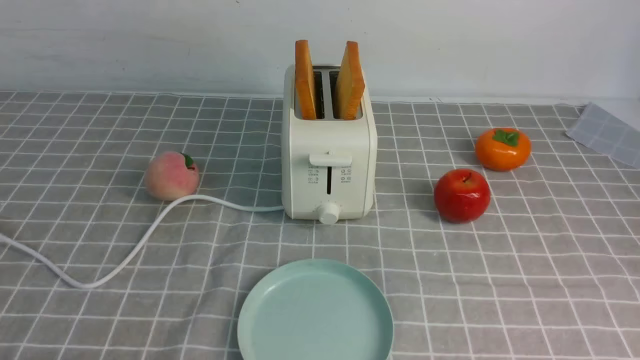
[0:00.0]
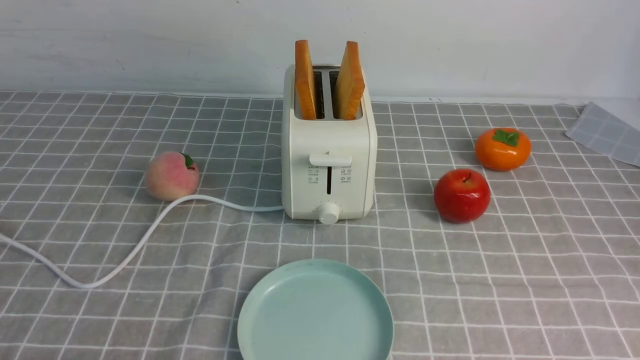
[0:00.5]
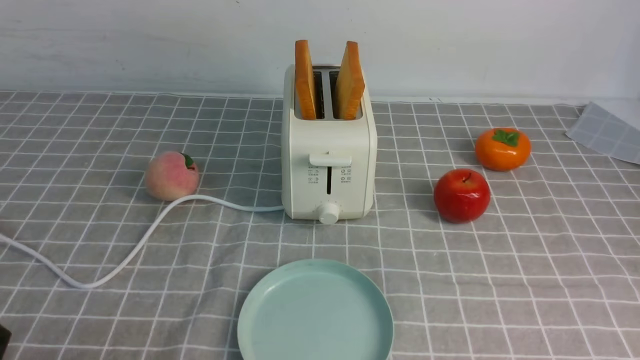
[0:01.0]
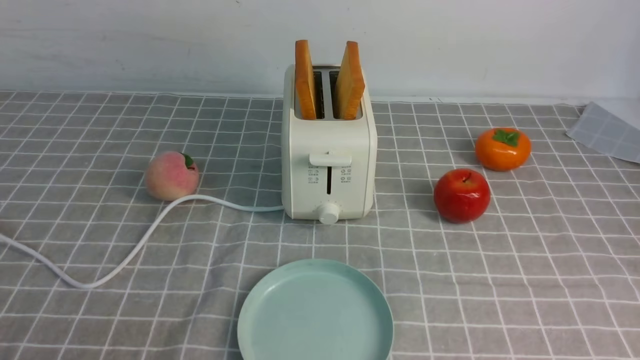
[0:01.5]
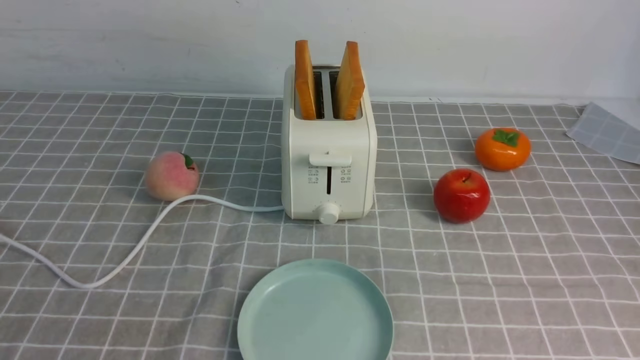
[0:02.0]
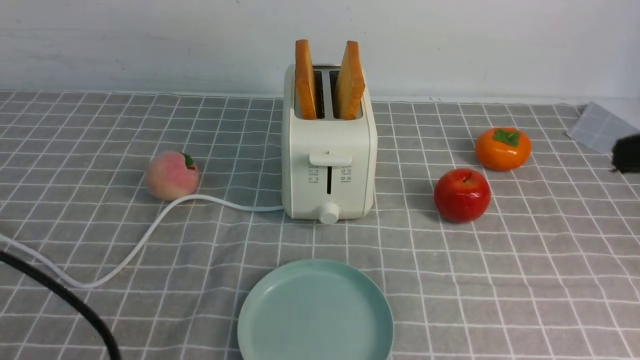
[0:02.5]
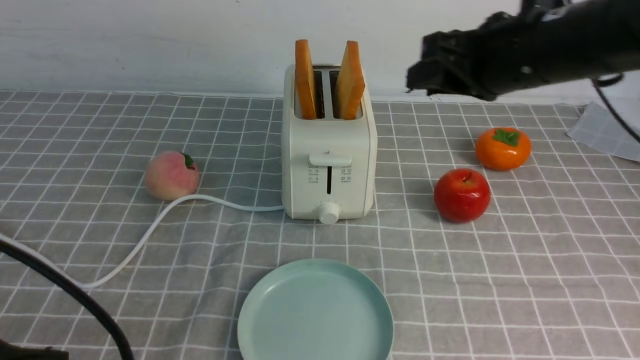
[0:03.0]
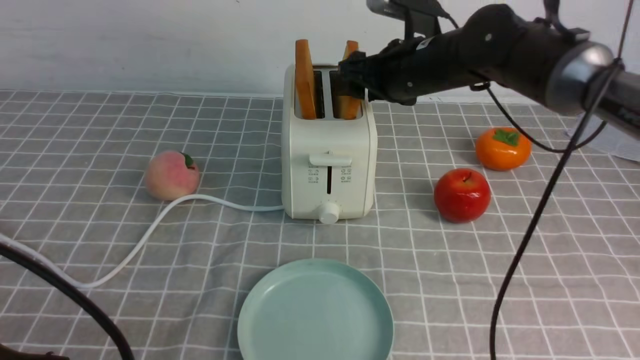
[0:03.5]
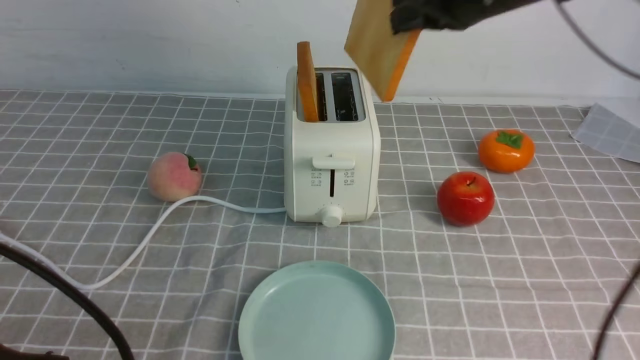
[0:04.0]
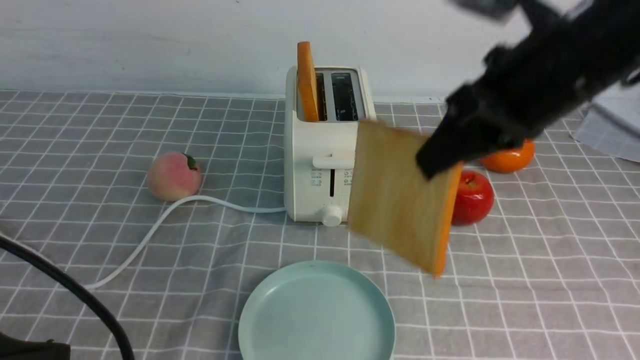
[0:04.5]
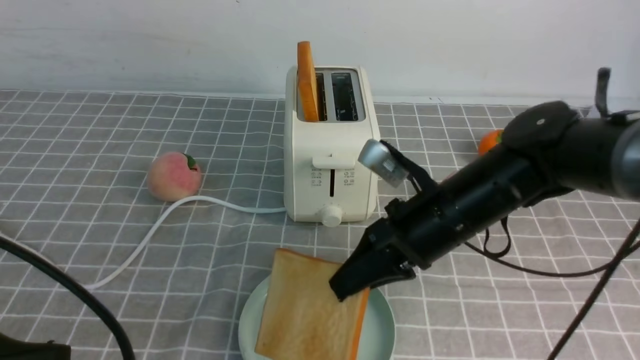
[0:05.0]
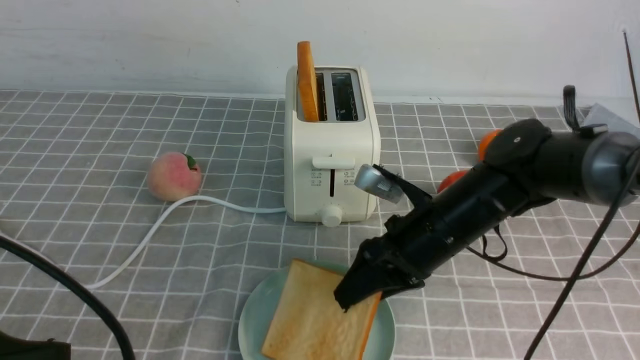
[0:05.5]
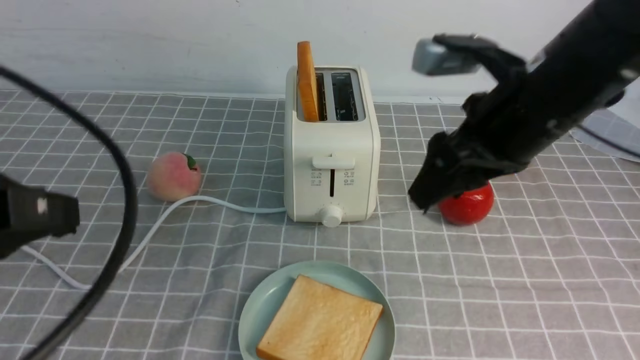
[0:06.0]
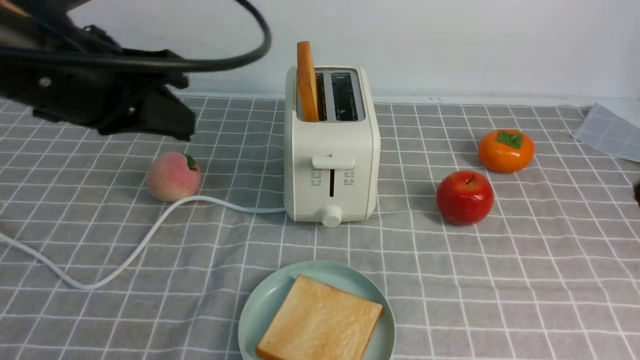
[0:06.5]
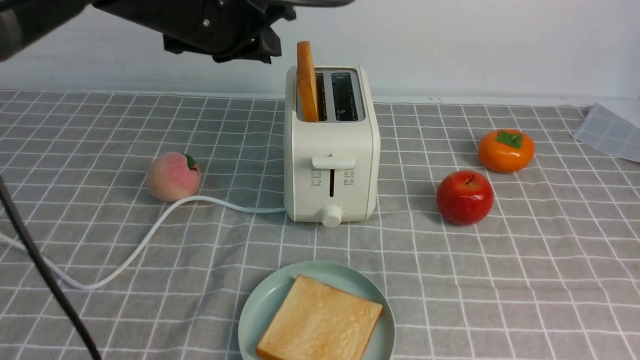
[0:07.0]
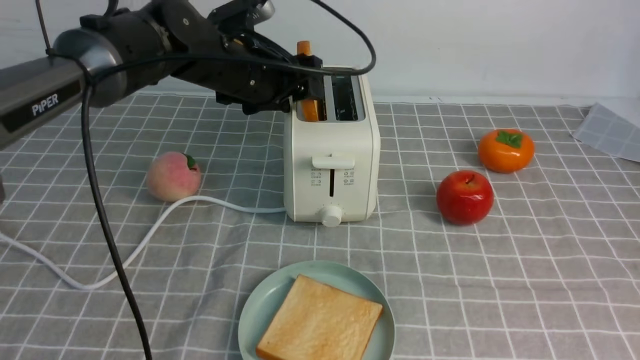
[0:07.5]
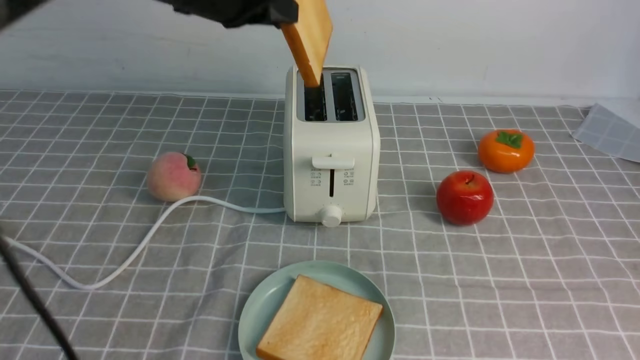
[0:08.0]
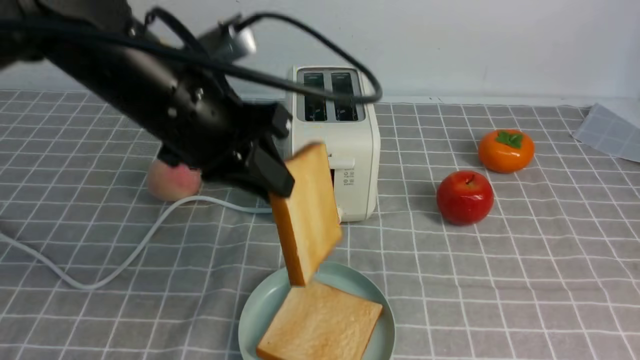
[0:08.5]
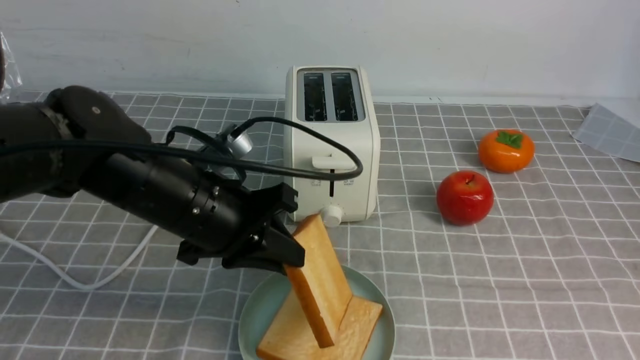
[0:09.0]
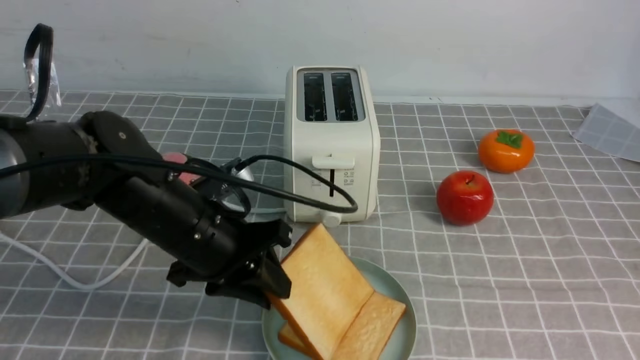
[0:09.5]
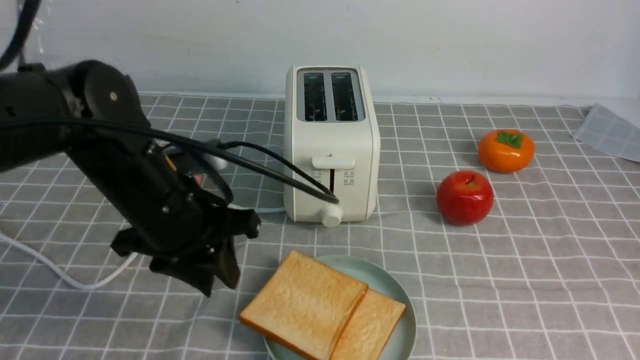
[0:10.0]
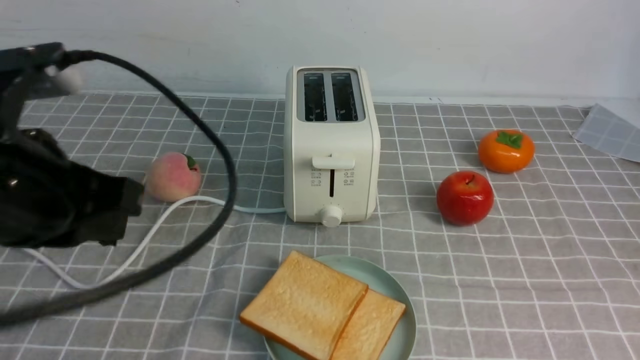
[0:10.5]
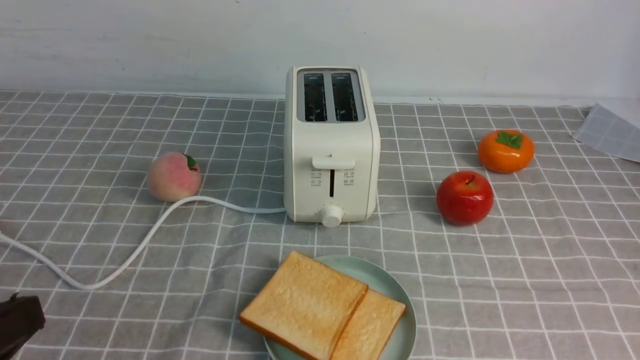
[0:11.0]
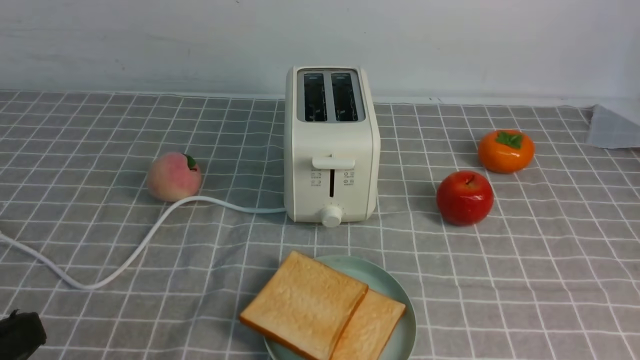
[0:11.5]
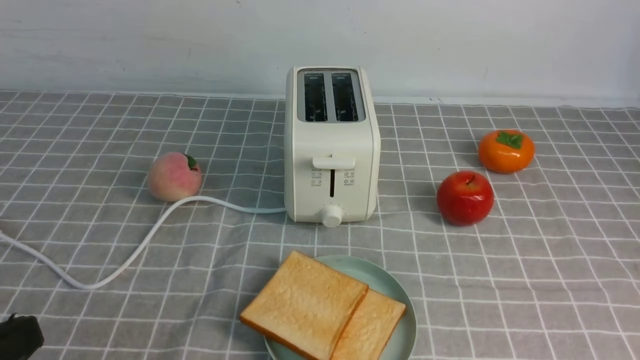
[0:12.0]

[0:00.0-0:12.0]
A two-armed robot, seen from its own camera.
Task of the whole recording: take toasted bread from bread machine on grey coffee table place on plate.
Step, 0:00.0 to 0:04.0: use the right arm to take out a slice of bread.
Step, 0:04.5 to 0:05.5: use the right arm to put a slice of bread into the plate.
Step, 0:06.0 to 0:08.0: use the left arm to take out a slice of bread.
Step, 0:08.5 to 0:10.0: use the left arm to put a slice of bread into the empty plate.
0:02.0 to 0:04.0: The left gripper ends up roughly 5 cm from where it was; the right gripper shifts roughly 35 cm forward, and opens, then closes again.
0:04.0 to 0:06.0: The left gripper is displaced upward and forward by some 10 cm; the right gripper goes about 10 cm backward, travels downward and back again, some 20 cm each way, and opens its fingers.
0:06.0 to 0:08.0: The right gripper travels backward and to the right by roughly 25 cm, and closes up; the left gripper goes roughly 25 cm forward and to the right, and opens, then closes once more.
0:08.0 to 0:10.0: The left gripper is displaced downward and backward by some 15 cm.
0:10.0 to 0:12.0: The left gripper heads backward and to the left, covering roughly 25 cm, and closes up. The right gripper travels downward and backward by some 10 cm.

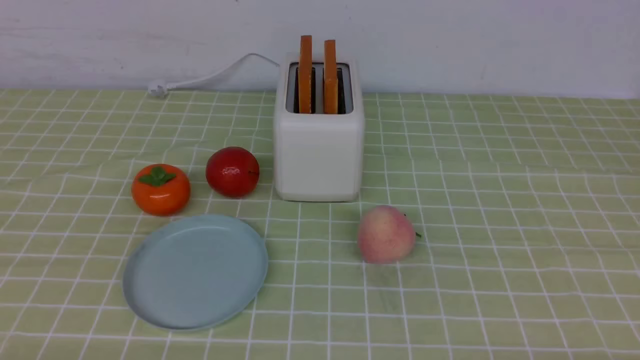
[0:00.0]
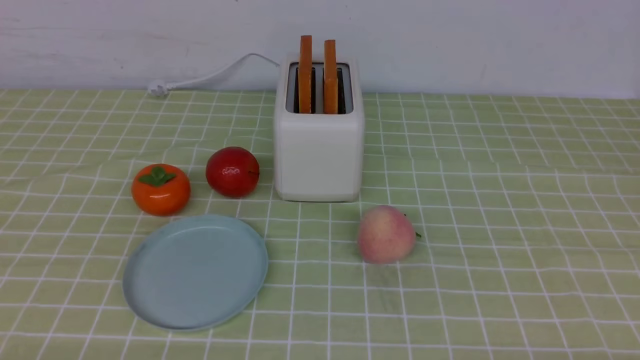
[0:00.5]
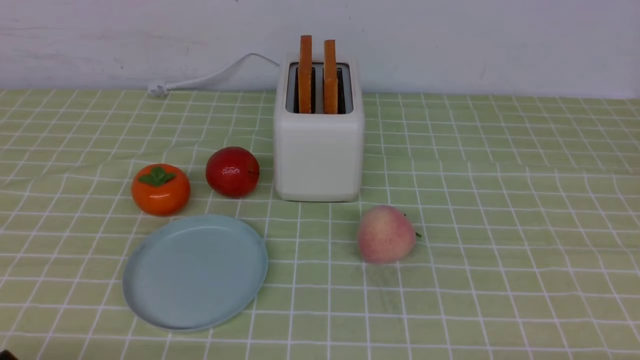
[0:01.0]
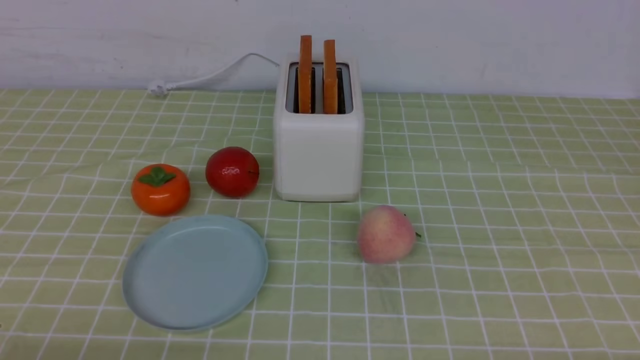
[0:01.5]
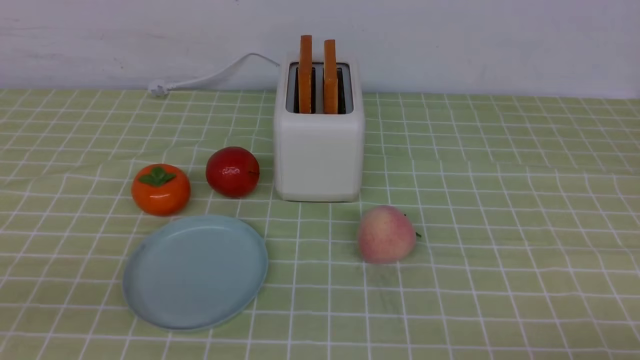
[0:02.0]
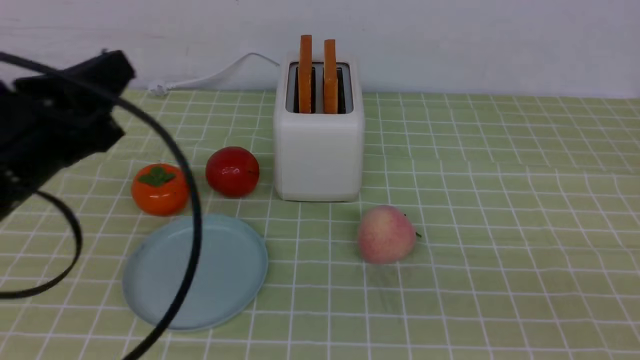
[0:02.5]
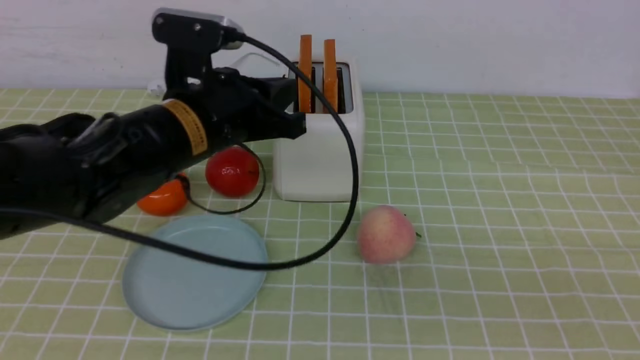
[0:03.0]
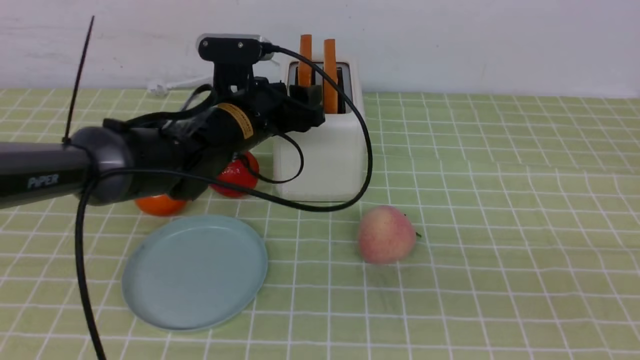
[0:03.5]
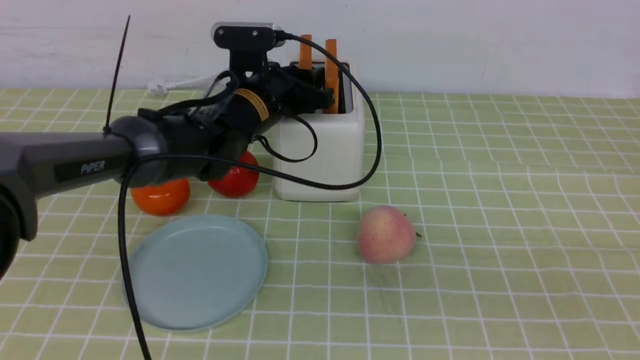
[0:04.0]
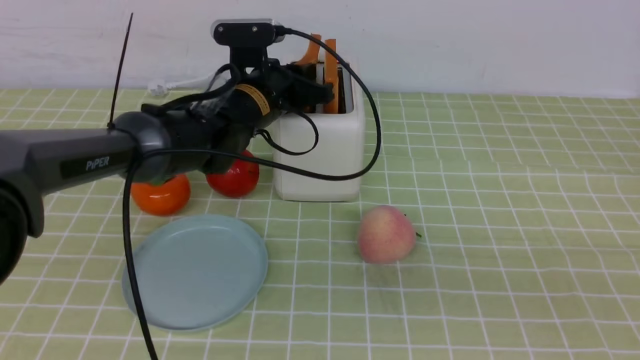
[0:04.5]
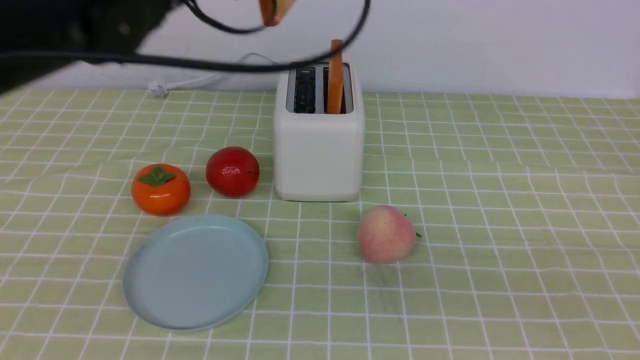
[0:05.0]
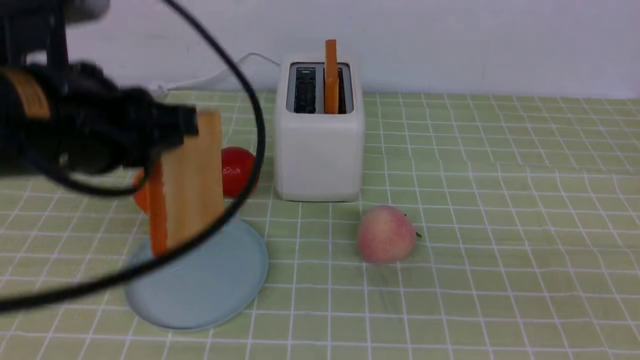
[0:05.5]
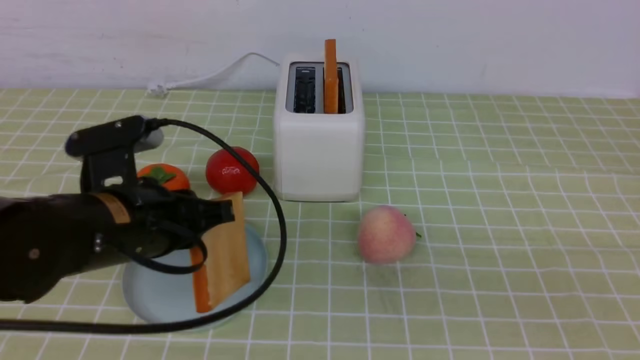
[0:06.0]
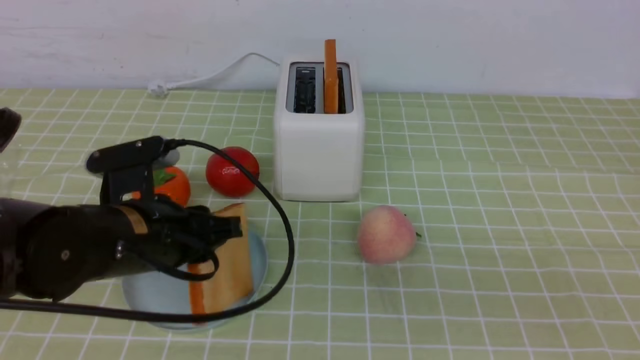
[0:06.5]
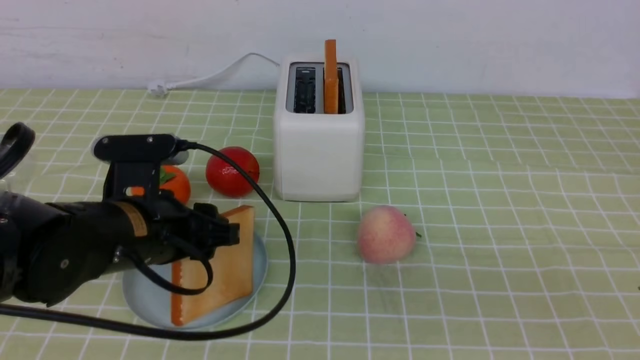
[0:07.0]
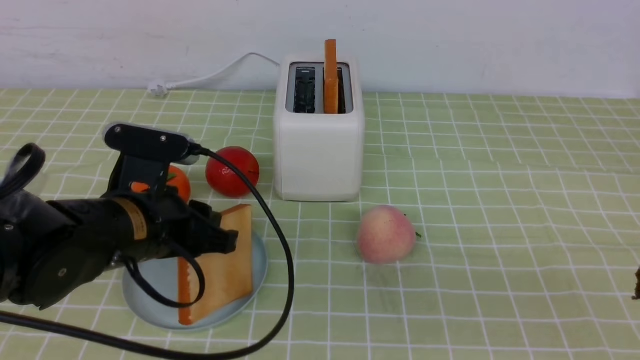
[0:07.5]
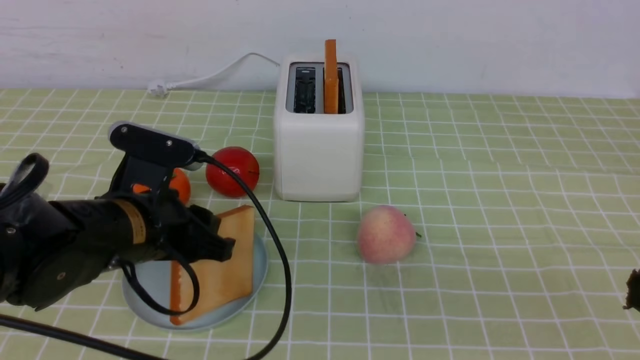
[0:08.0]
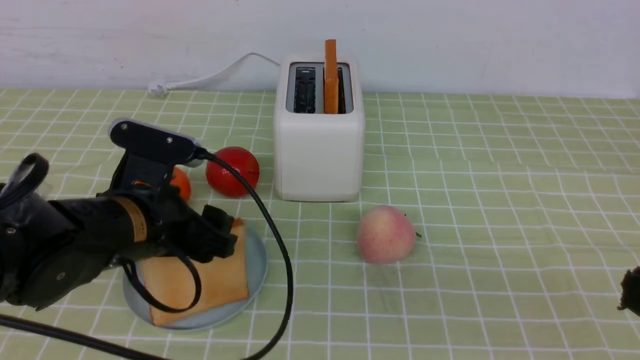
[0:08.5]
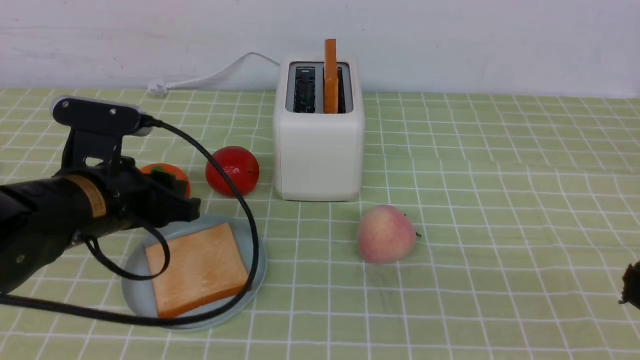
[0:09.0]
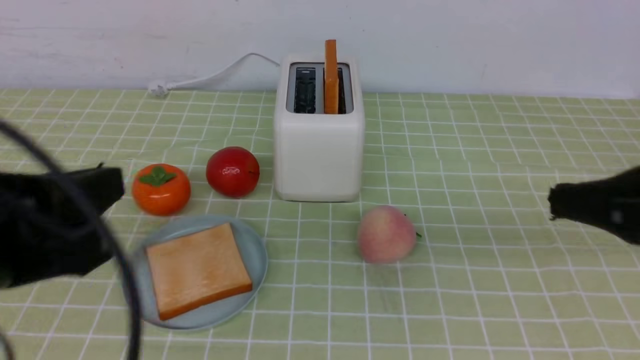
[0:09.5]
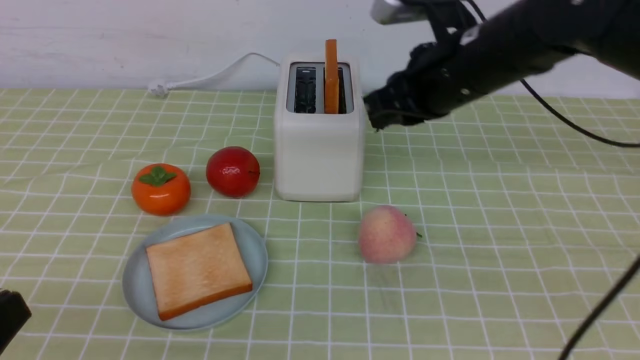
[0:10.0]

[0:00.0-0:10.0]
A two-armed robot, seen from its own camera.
Task of the whole recording: take toasted bread from bread machine on green coffee tablecloth place on plate.
Step, 0:00.0 to 0:05.0: use the left arm to take out a slice of bread.
Step, 0:05.5 to 0:08.5: use the left arm to put a slice of bread into the empty plate.
0:02.0 to 0:04.0: The right gripper travels upward by approximately 10 cm, while the left gripper goes roughly 40 cm forward and to the right, and opens up.
0:04.0 to 0:06.0: The left gripper shifts roughly 20 cm backward and to the left, and closes.
0:06.0 to 0:08.0: The left gripper opens.
0:08.0 to 0:10.0: The right gripper travels forward by roughly 25 cm; the left gripper goes about 20 cm backward, and closes its fingers.
